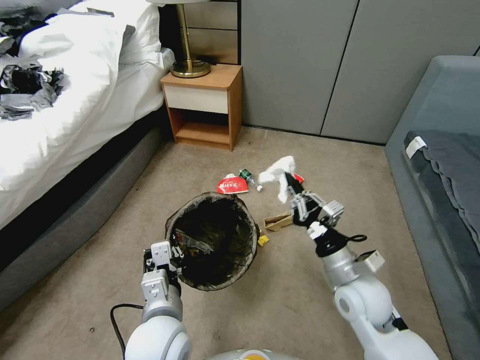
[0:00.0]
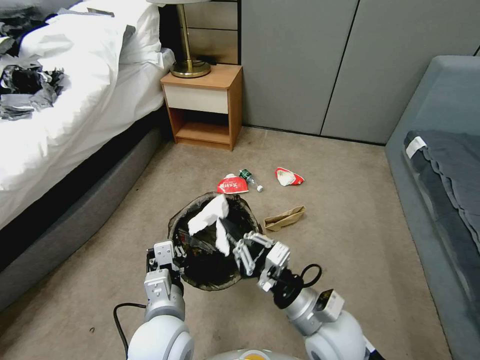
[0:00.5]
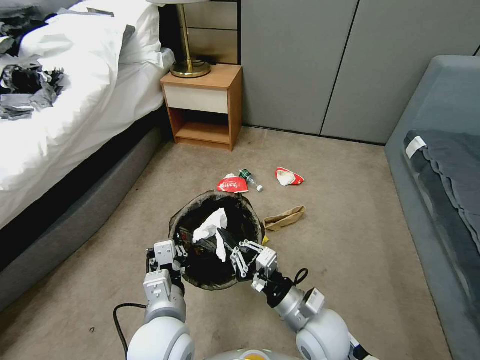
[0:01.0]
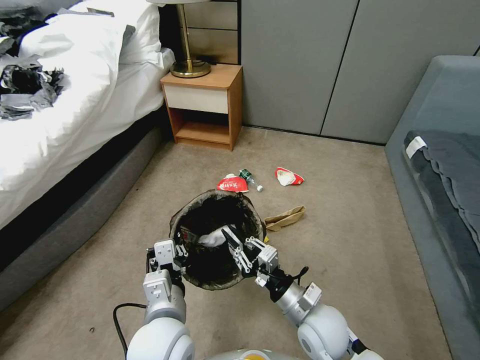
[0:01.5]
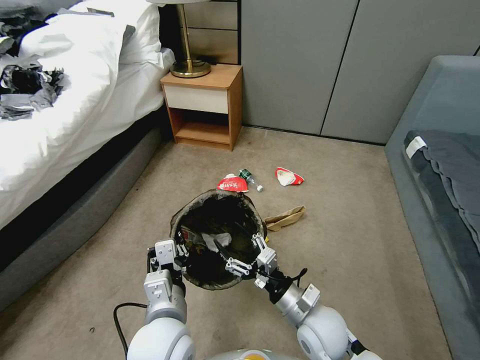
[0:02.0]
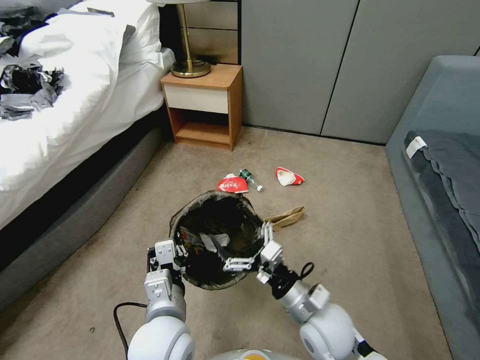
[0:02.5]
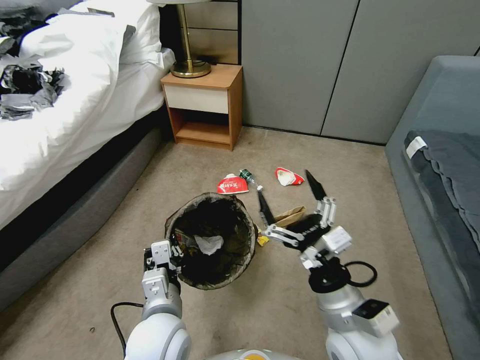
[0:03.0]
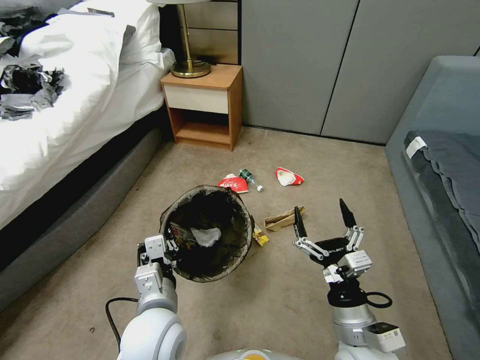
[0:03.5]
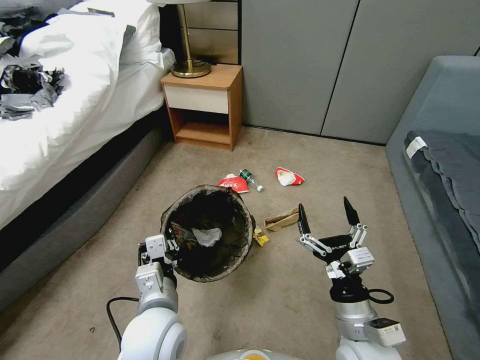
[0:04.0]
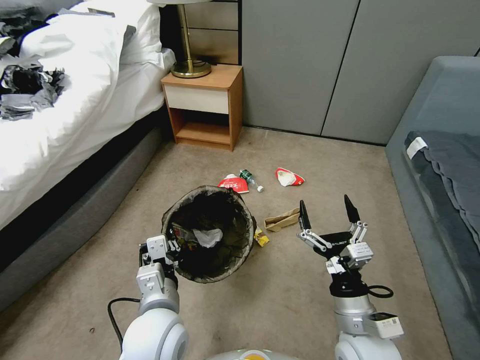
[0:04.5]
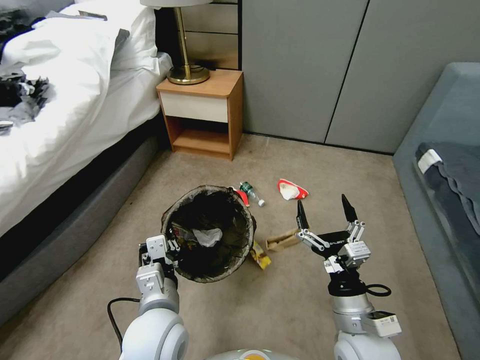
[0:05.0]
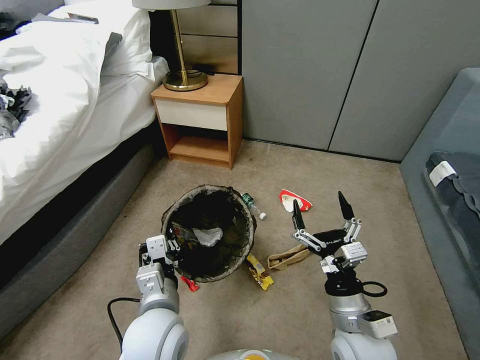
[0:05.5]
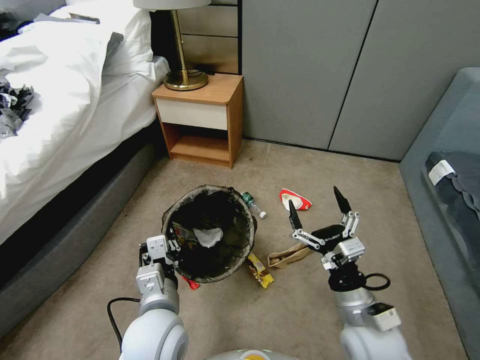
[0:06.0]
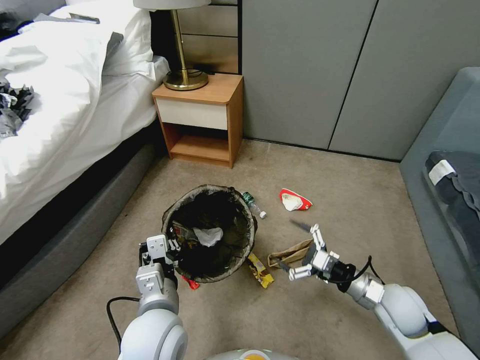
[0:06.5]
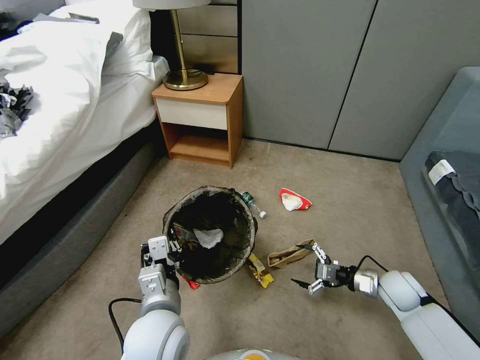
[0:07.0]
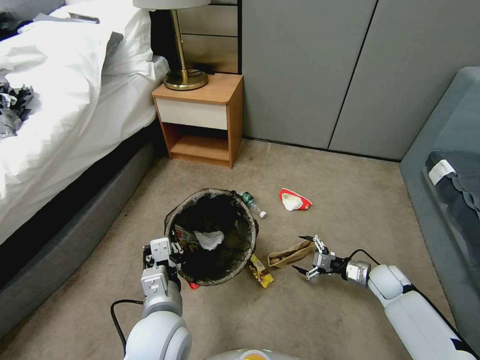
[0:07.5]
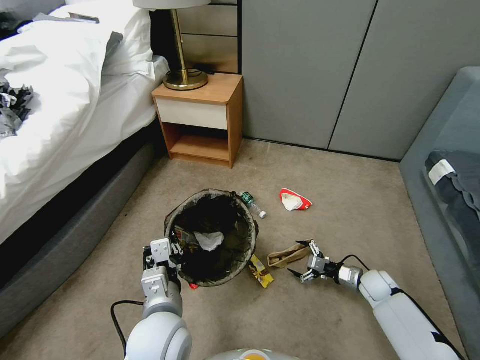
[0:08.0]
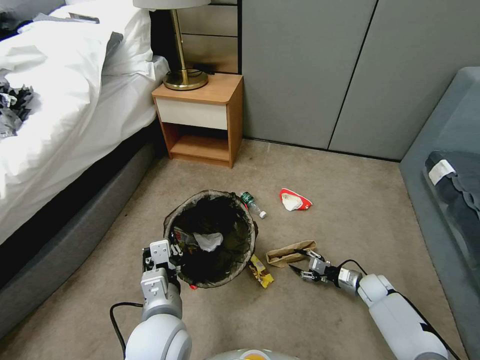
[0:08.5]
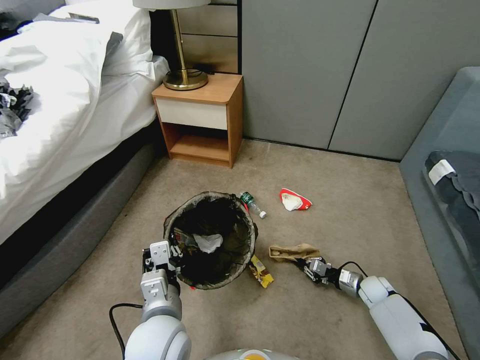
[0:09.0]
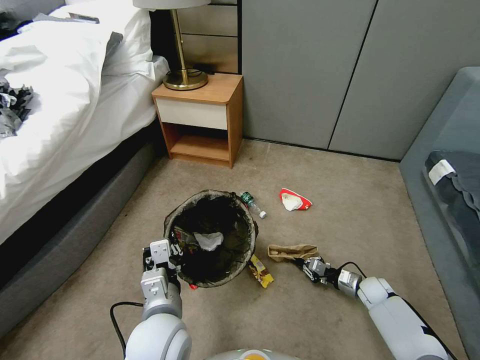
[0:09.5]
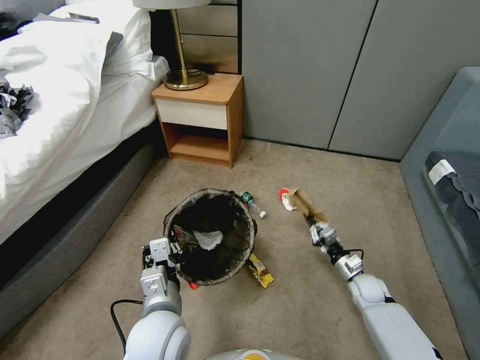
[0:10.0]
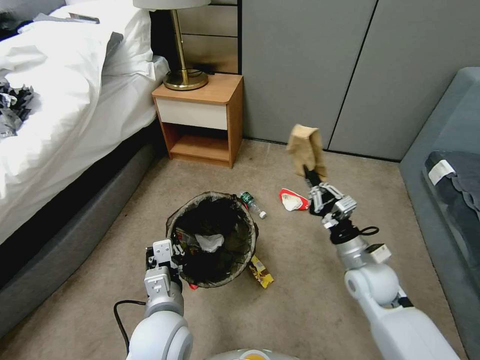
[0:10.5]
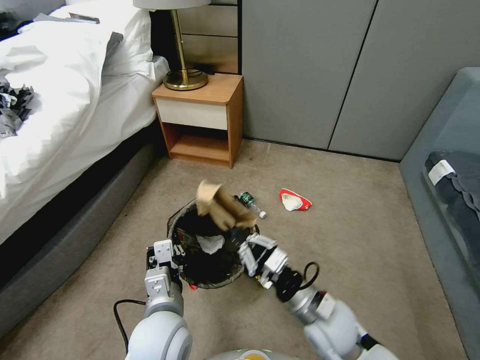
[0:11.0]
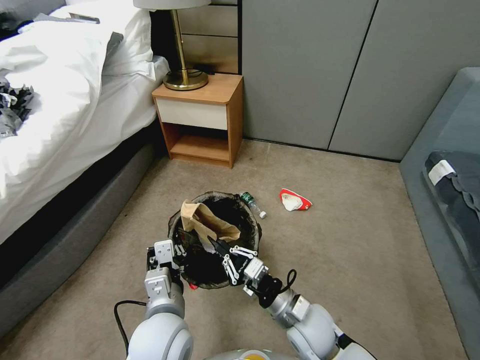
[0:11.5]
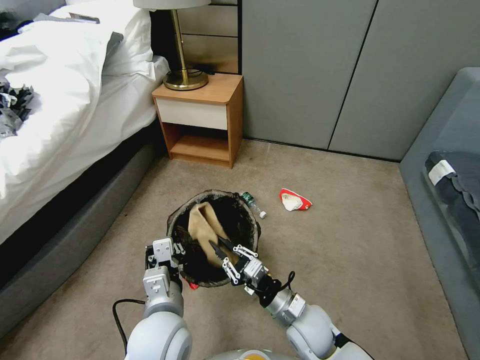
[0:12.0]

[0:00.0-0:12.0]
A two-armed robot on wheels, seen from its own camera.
Task of the whole recording: Pick up the trash bin, then pick up the garbage from the floor and place it into the trash bin.
0:00.0 to 0:02.0: The right gripper travels downward and to the left by about 10 cm, and opens up.
0:02.0 to 0:04.0: The right gripper shifts some 10 cm upward, to the right and backward.
0:06.0 to 0:08.0: The right gripper shifts approximately 30 cm downward, to the right and forward.
0:08.0 to 0:10.0: The right gripper closes its fingers.
0:10.0 to 0:12.0: The right gripper is displaced to the left, backward and upward by roughly 25 cm.

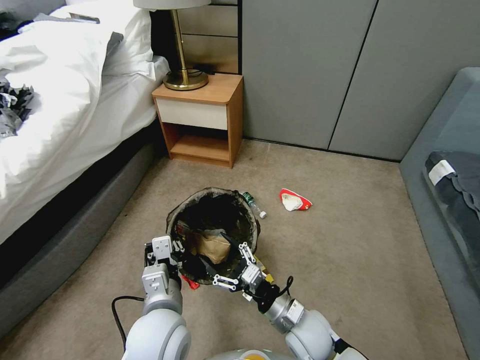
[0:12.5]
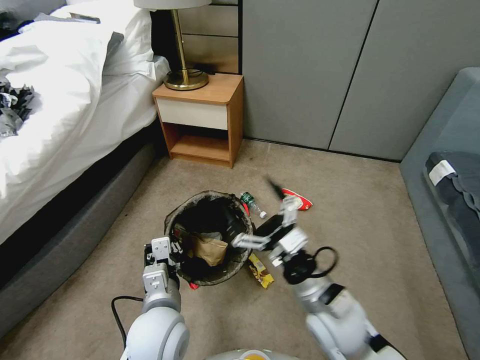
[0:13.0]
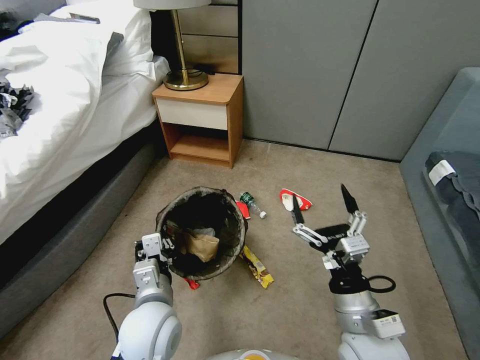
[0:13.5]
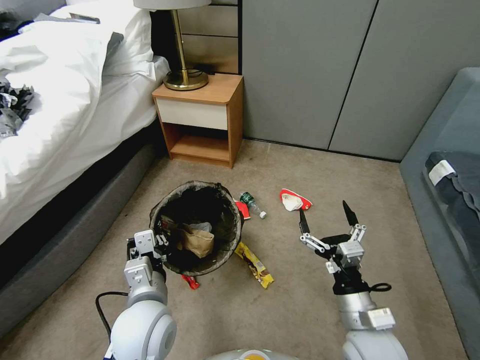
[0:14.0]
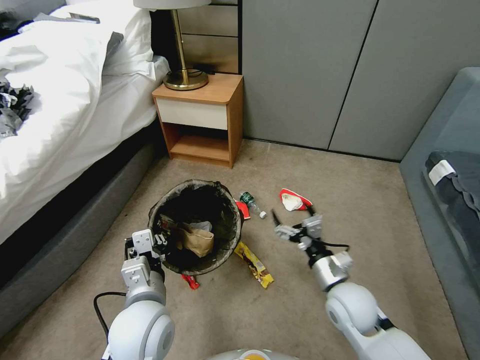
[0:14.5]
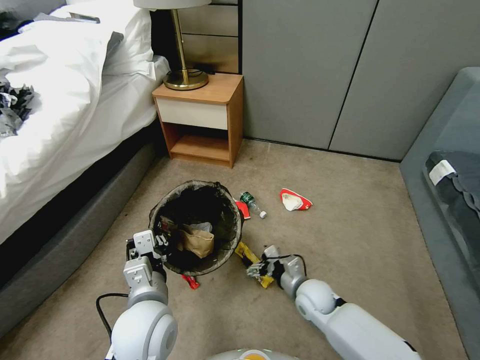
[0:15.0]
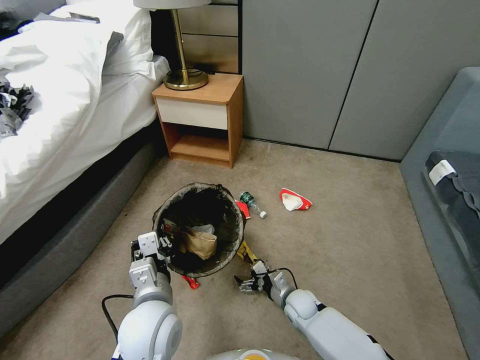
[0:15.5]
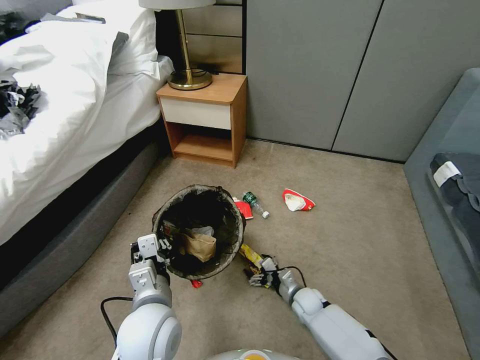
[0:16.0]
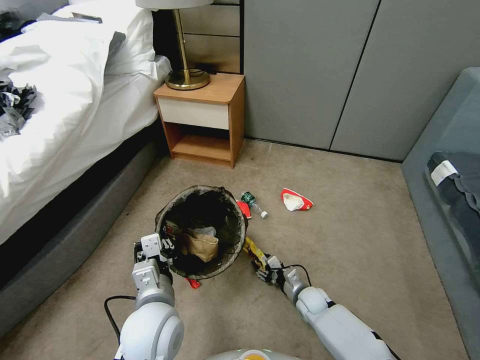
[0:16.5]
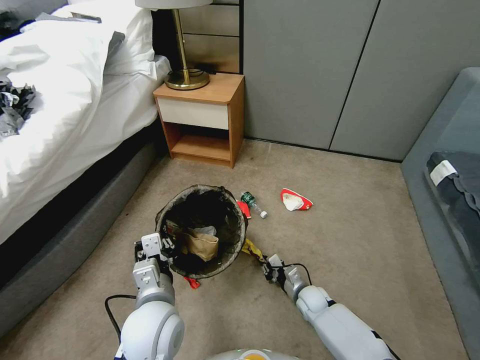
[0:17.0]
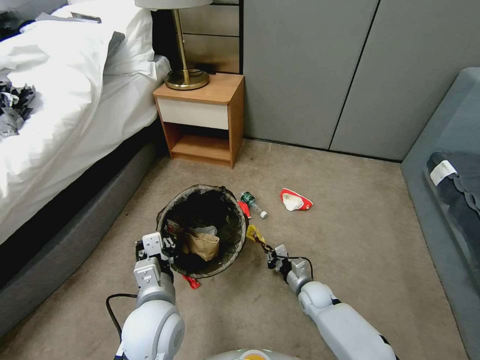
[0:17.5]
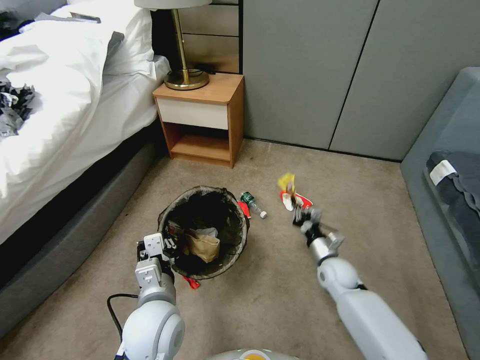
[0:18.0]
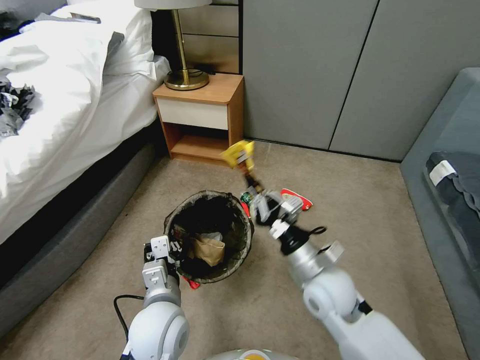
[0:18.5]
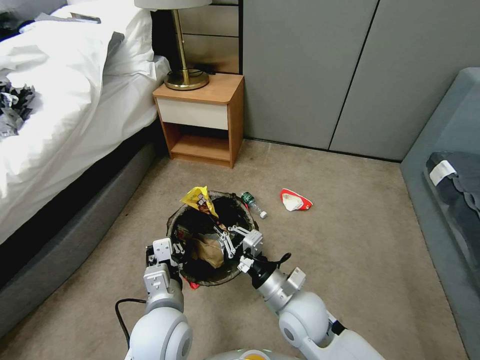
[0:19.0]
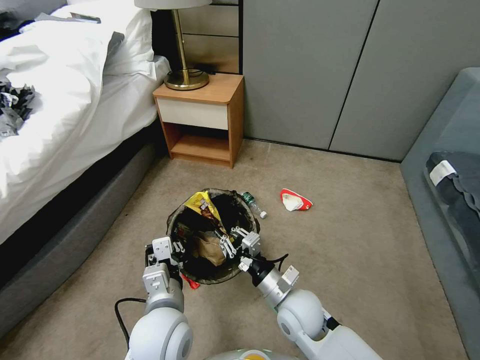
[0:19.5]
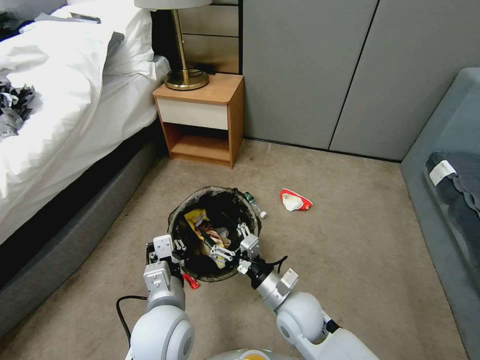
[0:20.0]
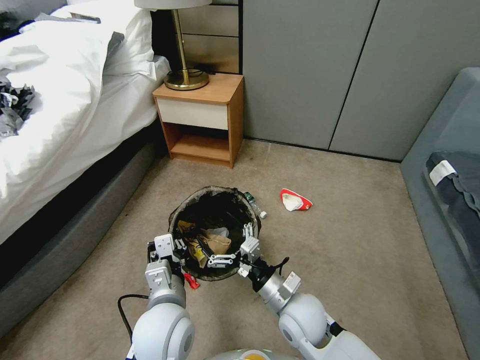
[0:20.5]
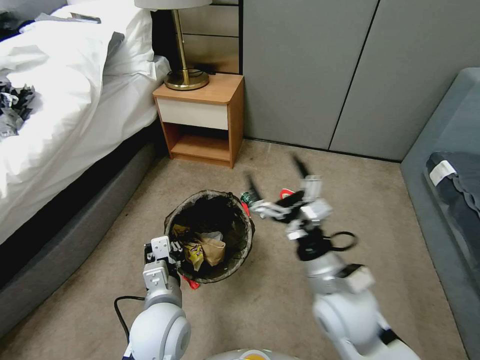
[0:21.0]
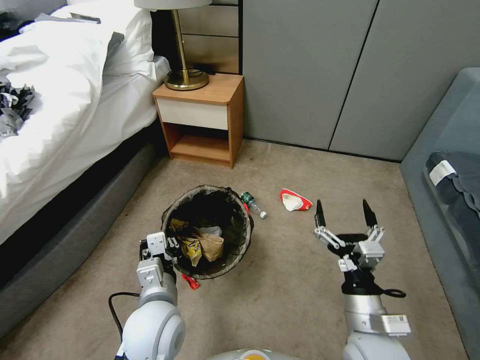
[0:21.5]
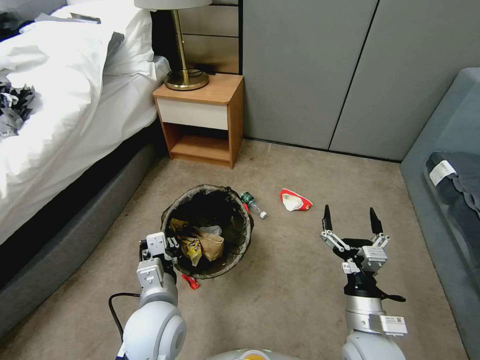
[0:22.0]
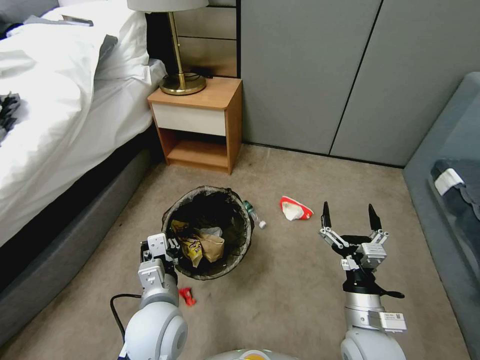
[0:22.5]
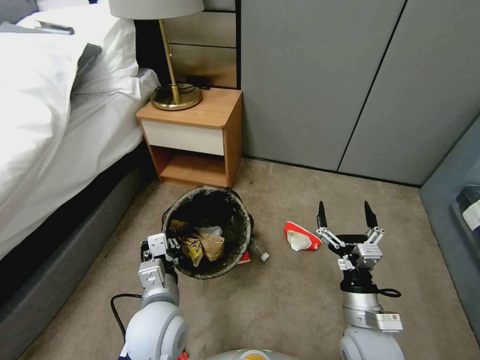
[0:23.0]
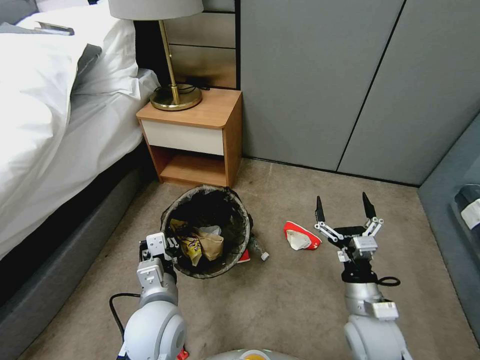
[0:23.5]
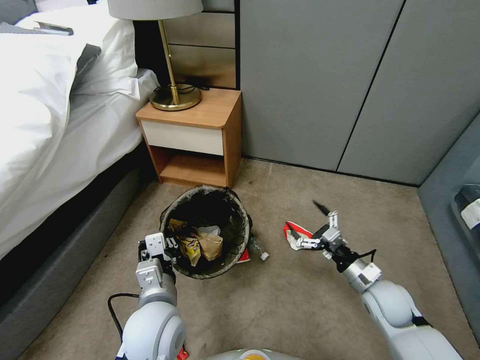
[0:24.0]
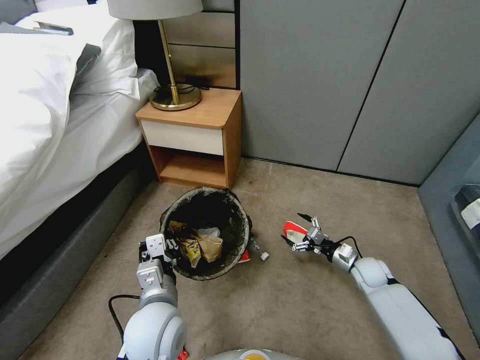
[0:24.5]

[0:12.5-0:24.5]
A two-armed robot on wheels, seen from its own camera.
Task of the whole recording: Pick up the trash bin, then pick up the garbage from the floor and place it into the trash bin.
0:12.5 to 0:14.5: The right gripper heads to the right, covering approximately 10 cm.
0:14.5 to 0:16.5: The right gripper travels downward by about 20 cm, and closes.
0:16.5 to 0:18.5: The right gripper travels upward by about 30 cm, and closes.
0:18.5 to 0:20.5: The right gripper heads downward and to the left, covering about 10 cm, and opens.
0:20.5 to 0:22.5: The right gripper moves to the right and backward, roughly 15 cm, and moves some 15 cm upward and comes back.
0:22.5 to 0:24.5: The right gripper travels forward, downward and to the right by roughly 30 cm.

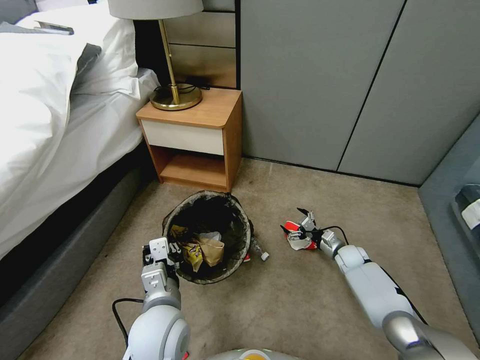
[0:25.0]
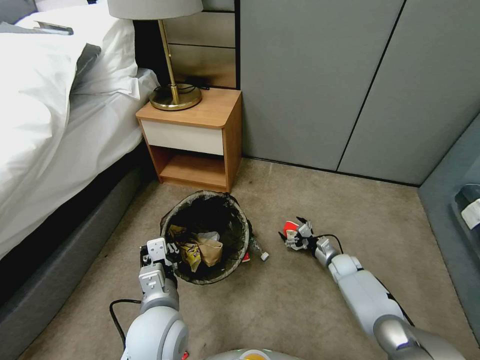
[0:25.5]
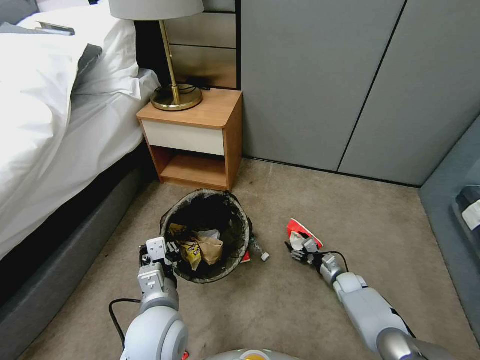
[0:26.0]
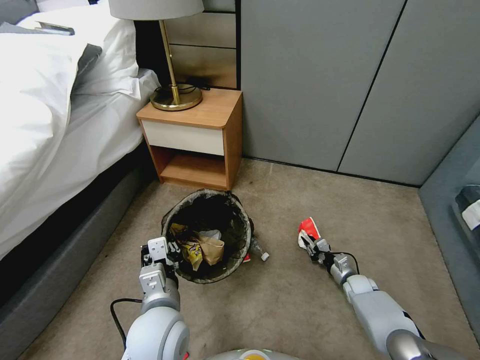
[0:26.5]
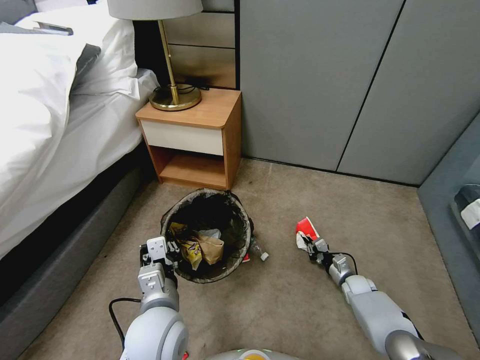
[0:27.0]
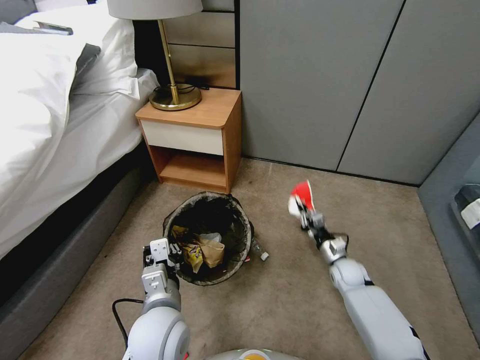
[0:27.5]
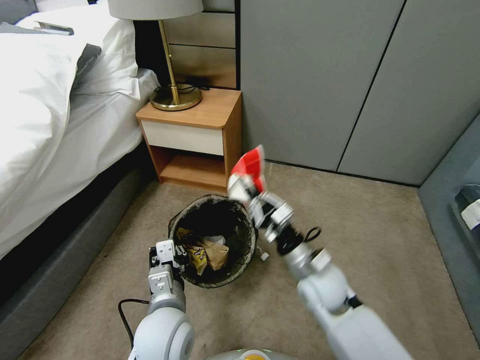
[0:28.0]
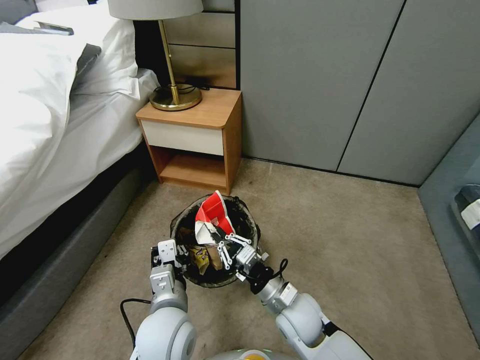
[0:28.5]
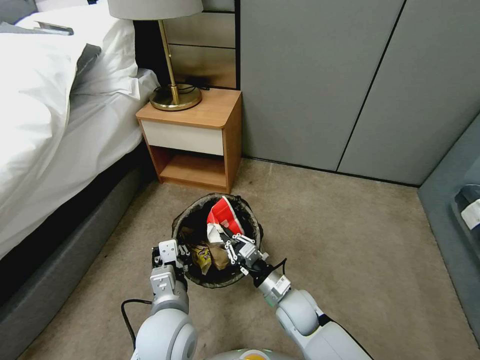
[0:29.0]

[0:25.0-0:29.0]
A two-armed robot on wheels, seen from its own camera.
Task of the whole recording: Pick up the trash bin, then pick up the garbage from the floor and place it into the trash bin.
0:25.0 to 0:27.0: The right gripper is displaced backward and downward by about 10 cm, and closes up.
0:27.0 to 0:29.0: The right gripper shifts about 30 cm to the left and upward.
